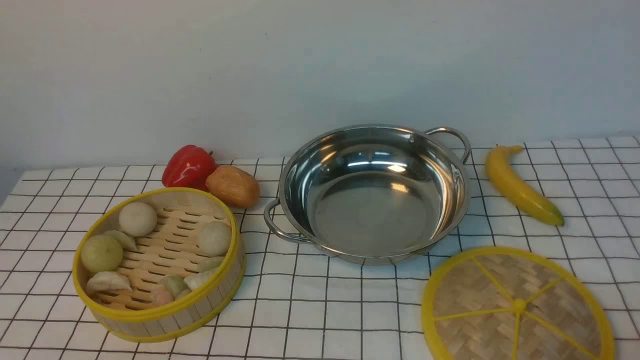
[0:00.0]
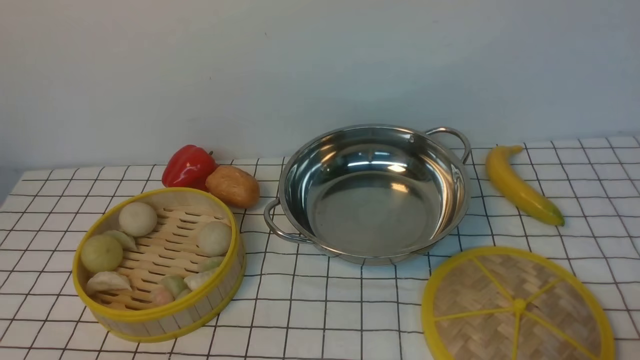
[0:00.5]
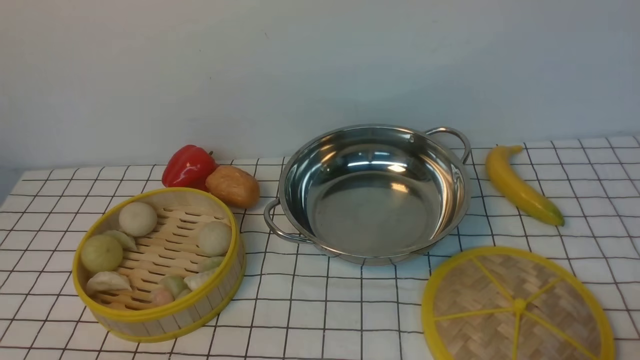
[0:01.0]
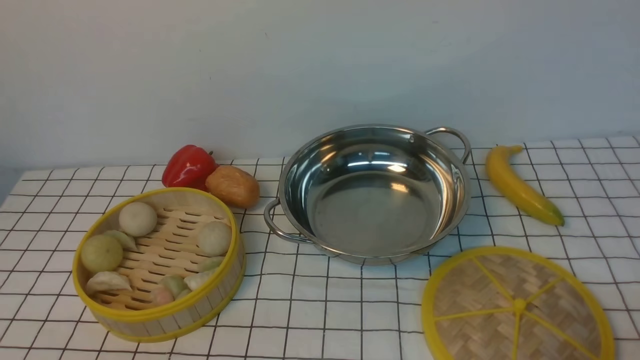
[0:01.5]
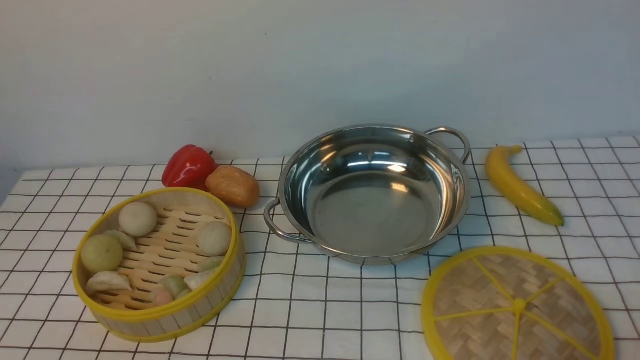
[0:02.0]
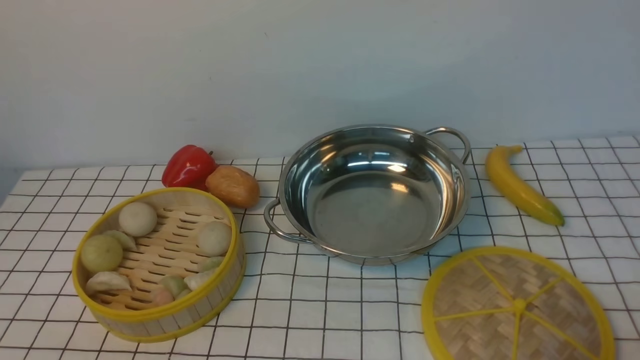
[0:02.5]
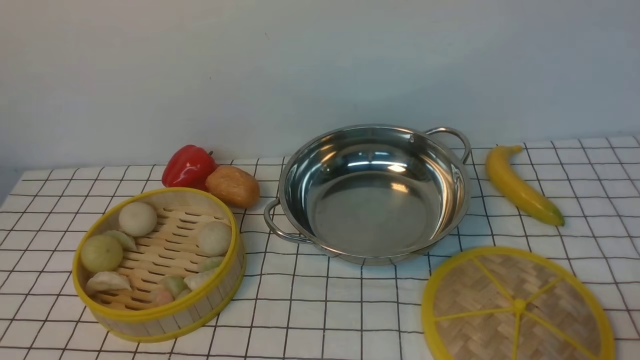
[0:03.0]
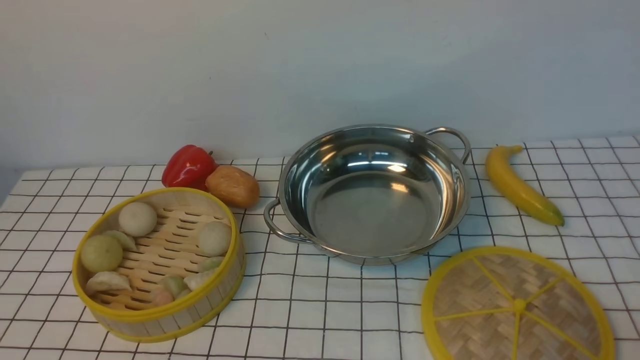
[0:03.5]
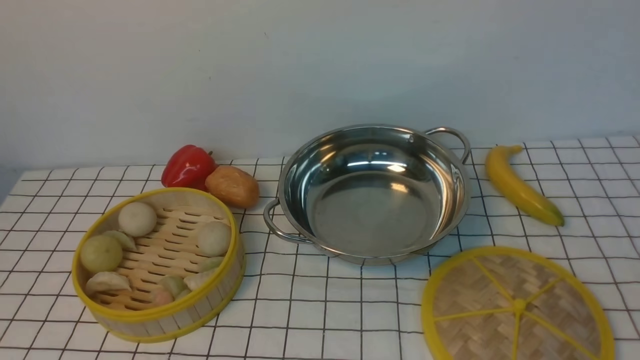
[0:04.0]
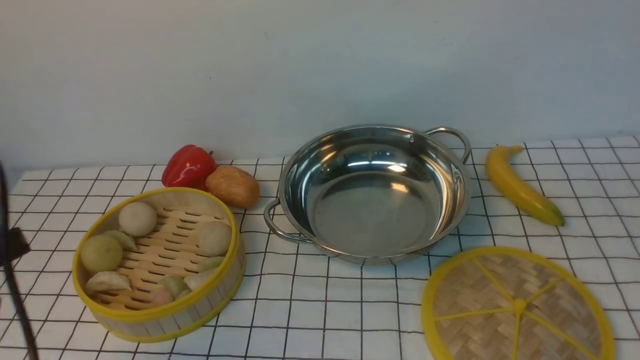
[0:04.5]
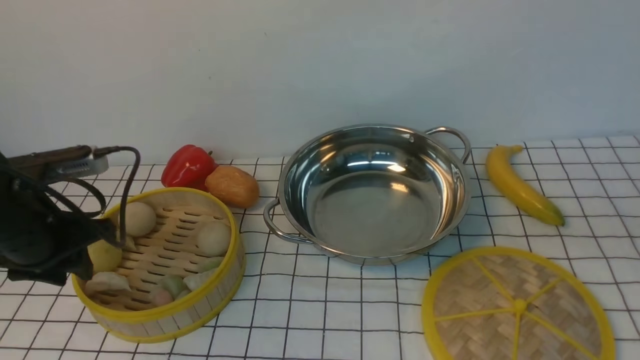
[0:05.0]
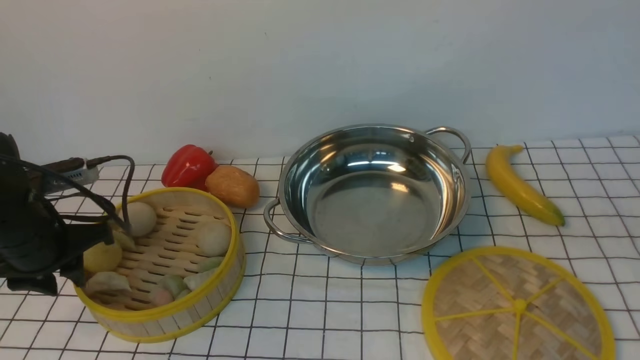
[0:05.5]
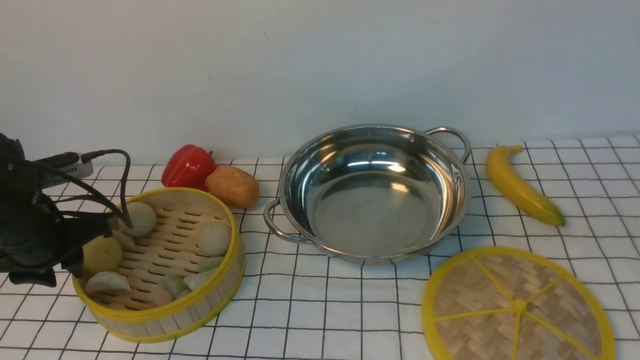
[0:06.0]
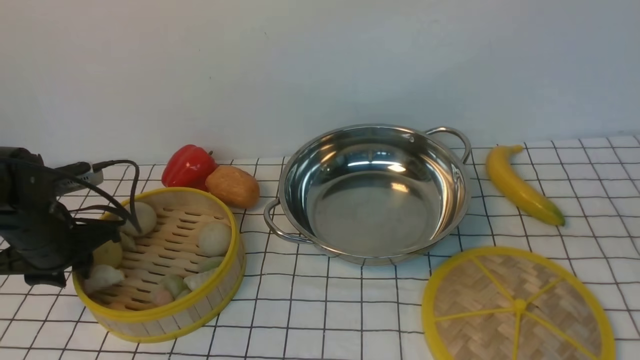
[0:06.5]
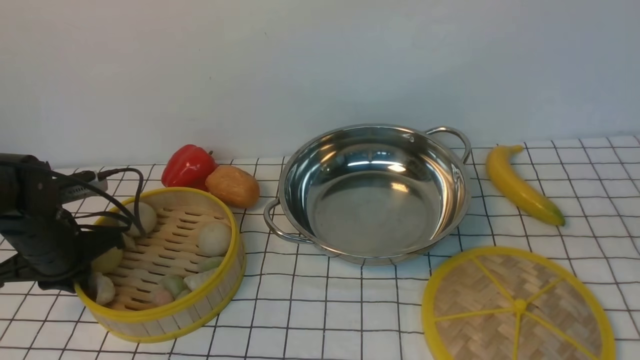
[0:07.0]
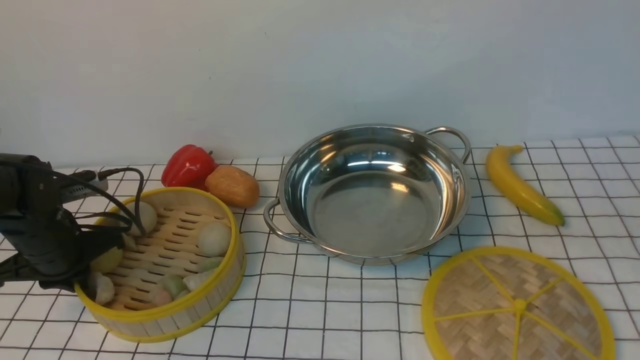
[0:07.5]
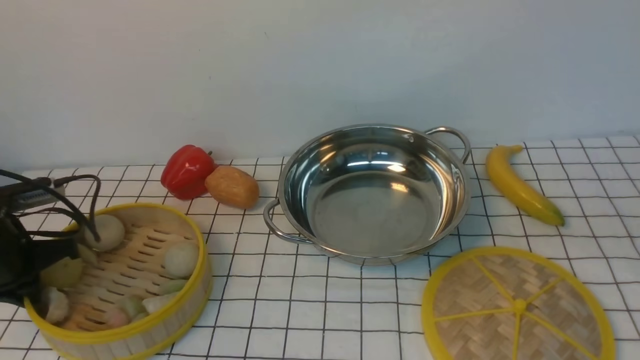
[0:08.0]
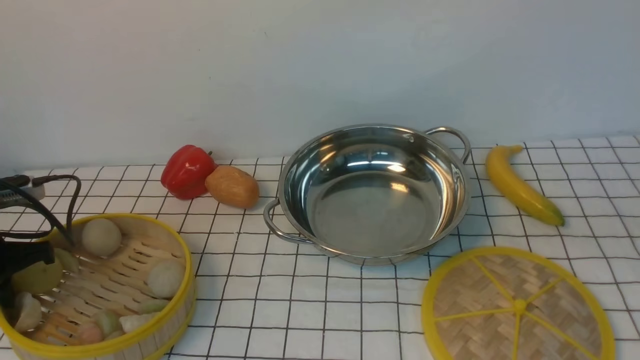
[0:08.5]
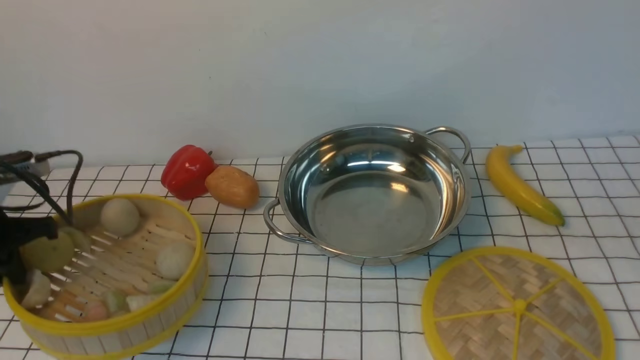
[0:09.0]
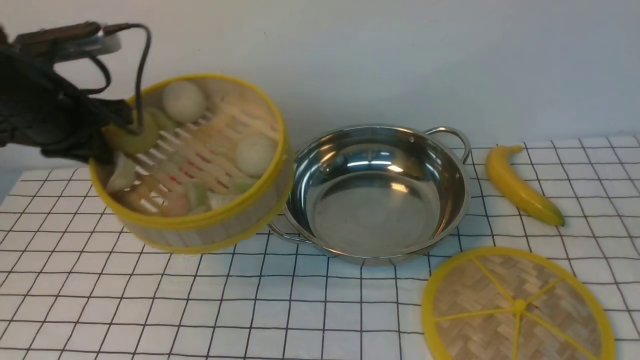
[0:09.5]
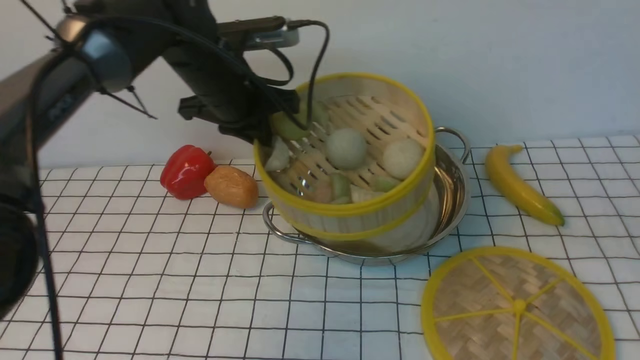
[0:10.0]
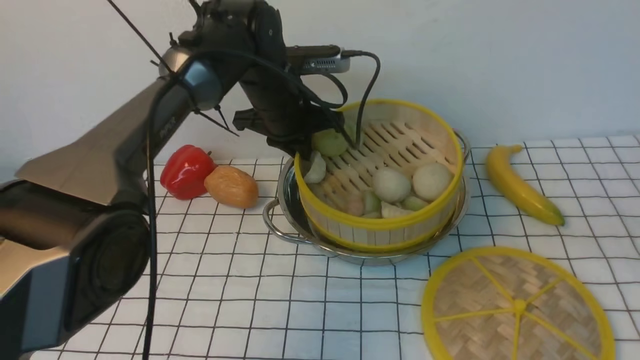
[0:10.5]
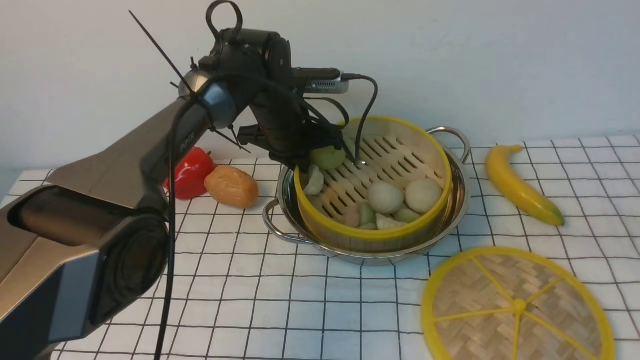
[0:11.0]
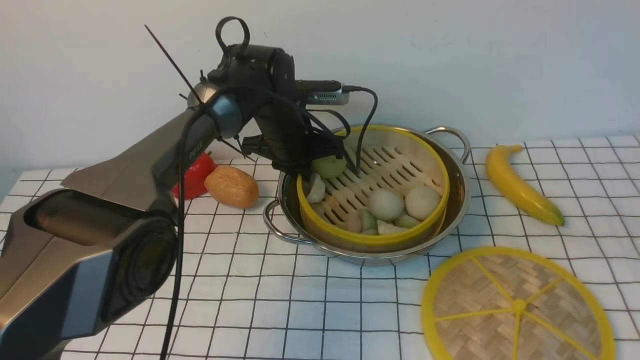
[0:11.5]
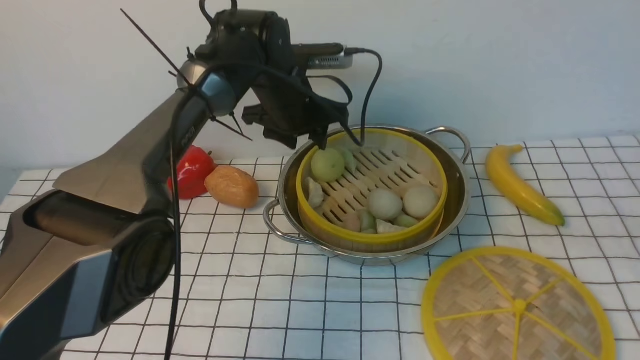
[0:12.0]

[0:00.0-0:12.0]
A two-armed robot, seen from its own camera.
Task of the whole recording: place the steamer in the pot on the white tablecloth, and put the lid on the steamer.
Step, 0:00.0 to 0:09.0: use the left arm to lift the steamer closest to it.
Step, 0:09.5 to 0:12.0: use the left arm to put the steamer into the iron steamer pot in the middle.
0:04.0 to 0:06.0: The left gripper travels forward by some 25 cm.
0:06.0 to 0:08.0: The left gripper closes up.
0:08.0 to 0:10.0: The left gripper heads to the right, forward and upward, covering about 30 cm.
0:10.0 to 0:12.0: The left gripper travels forward and to the right by about 10 cm, and opens up.

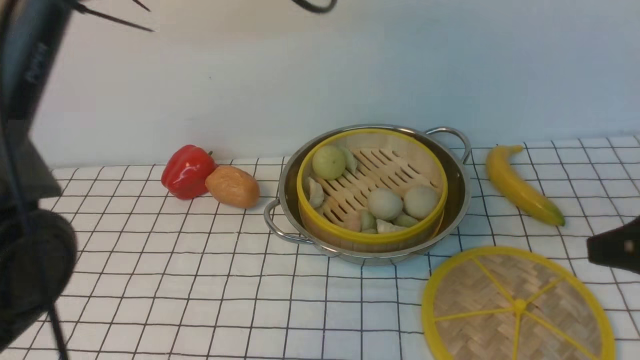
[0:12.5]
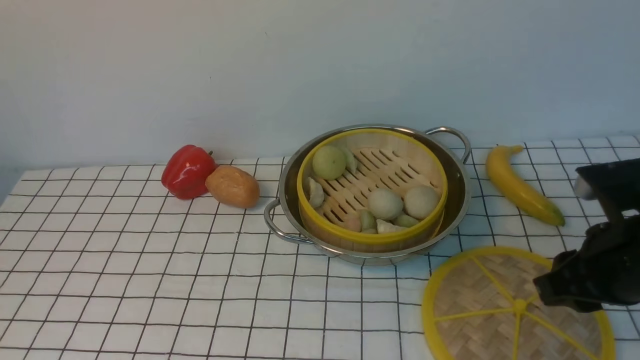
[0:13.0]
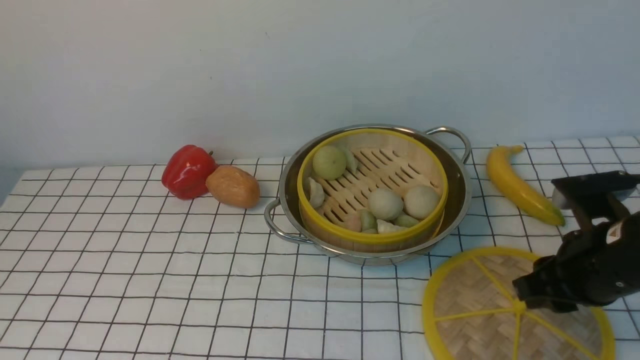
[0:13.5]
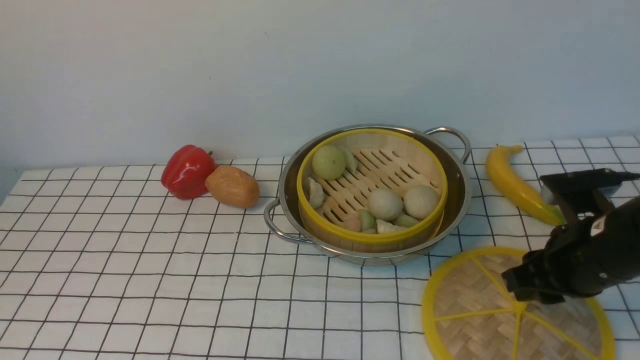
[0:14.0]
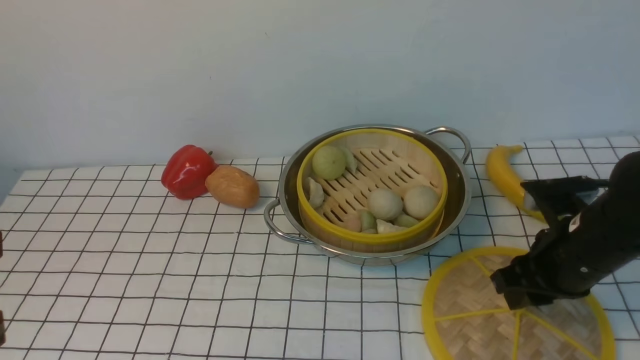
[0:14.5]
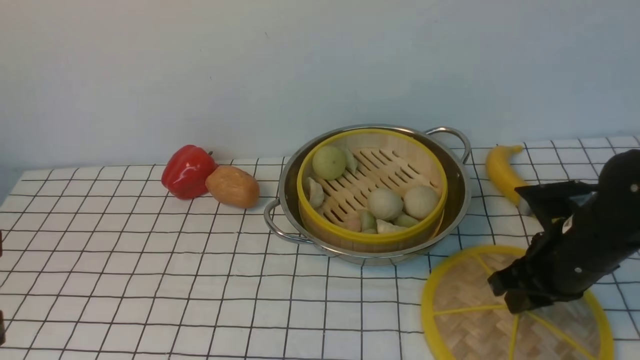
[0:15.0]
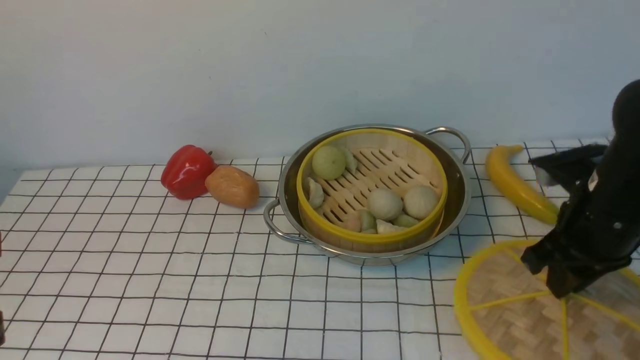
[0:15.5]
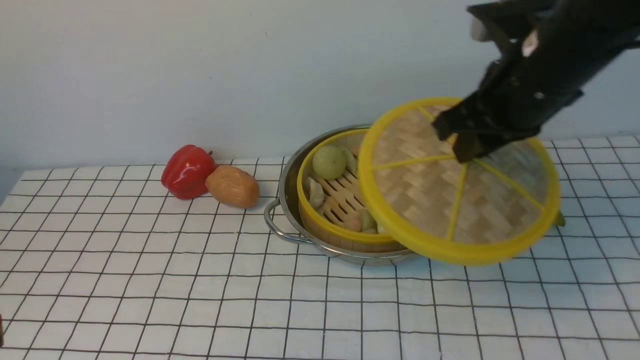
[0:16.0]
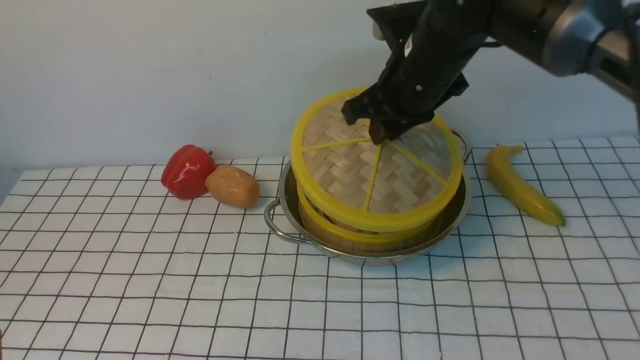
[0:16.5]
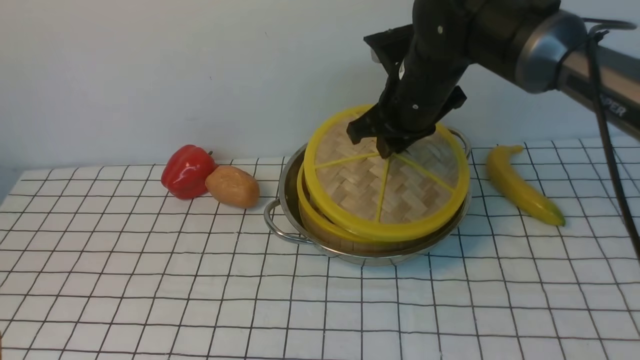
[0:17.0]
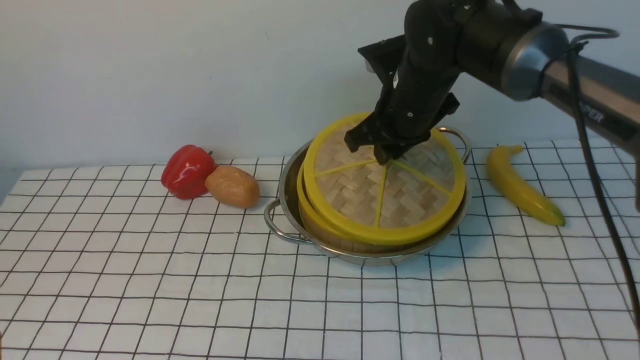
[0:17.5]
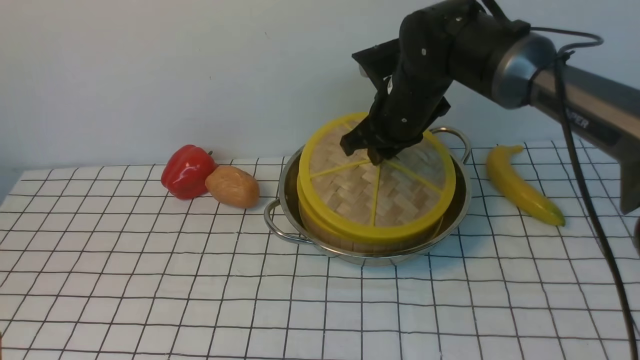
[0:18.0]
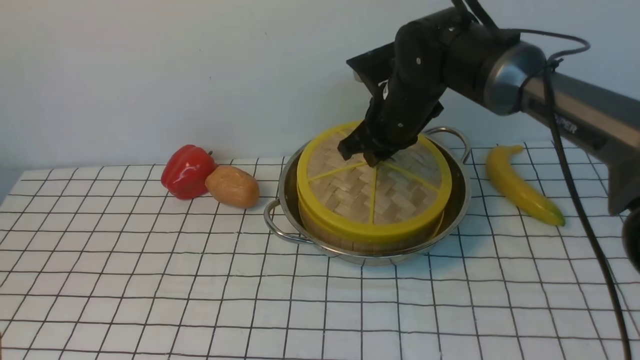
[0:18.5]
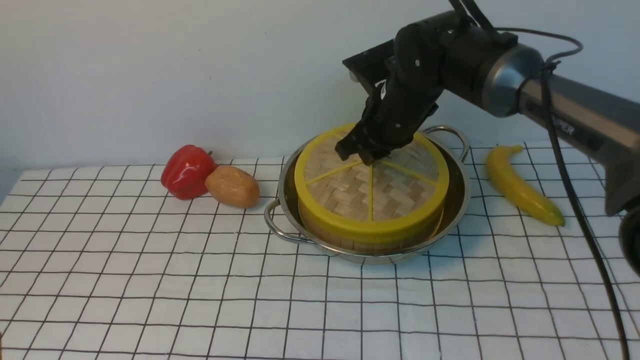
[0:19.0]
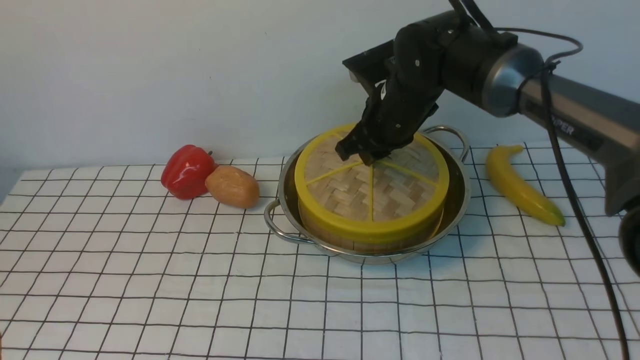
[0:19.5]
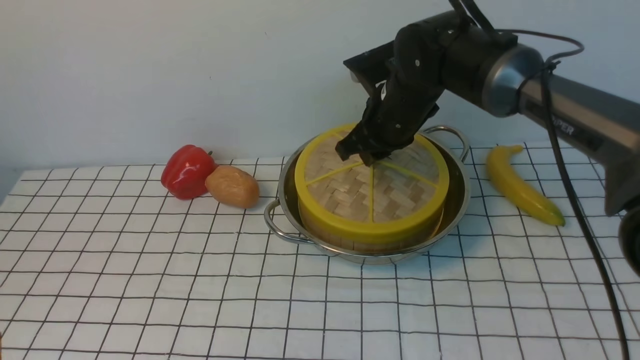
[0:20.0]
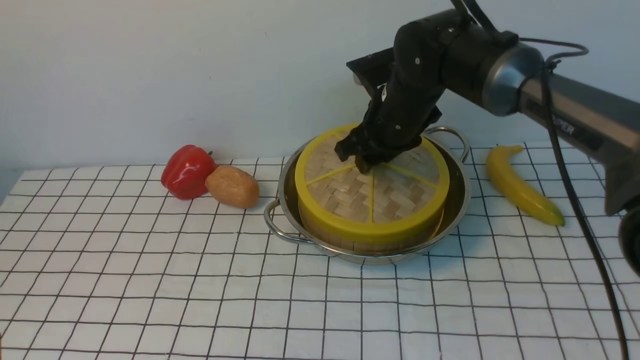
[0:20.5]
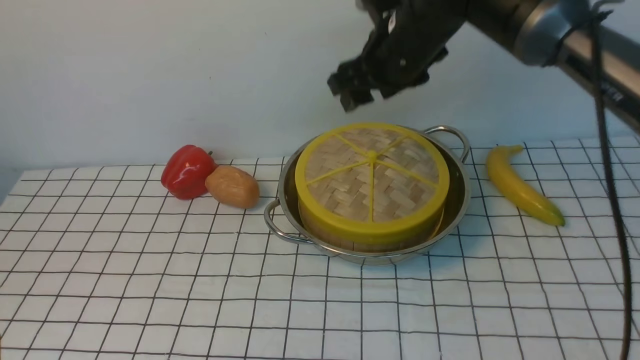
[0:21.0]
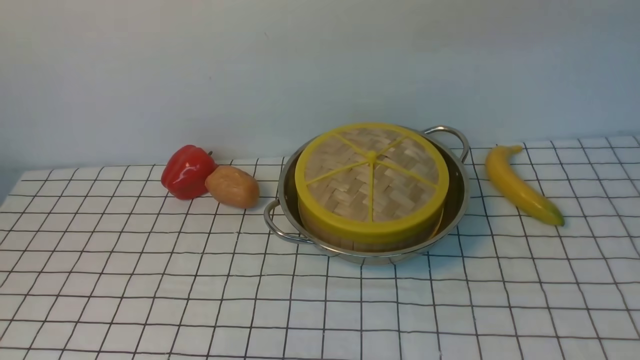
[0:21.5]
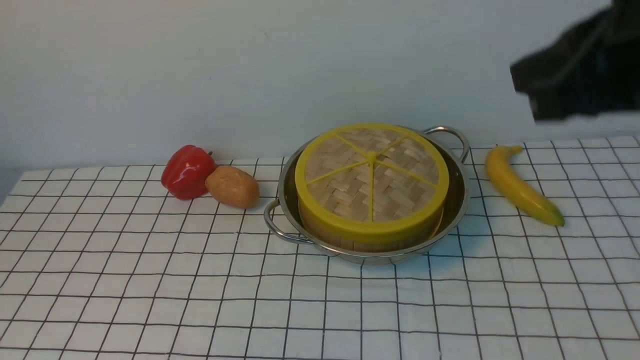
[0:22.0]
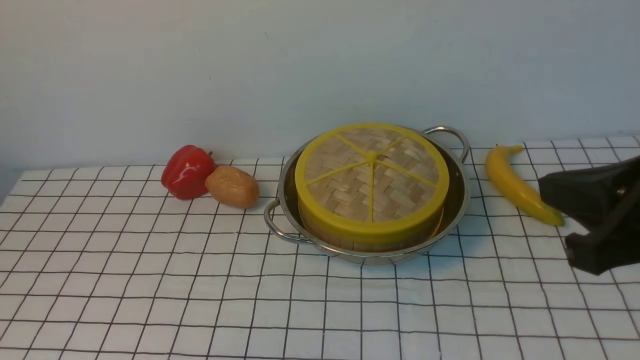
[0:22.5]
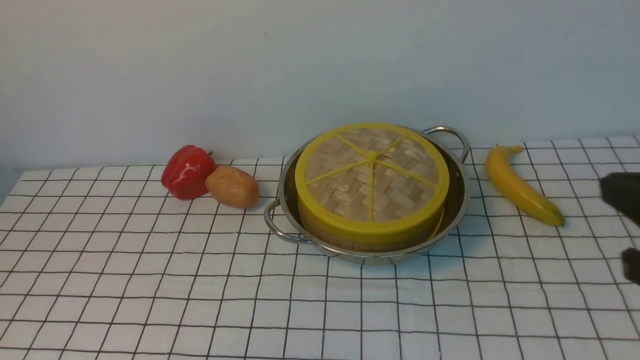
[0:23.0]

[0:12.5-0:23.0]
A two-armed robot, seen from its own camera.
Task of the whole recording: place the steamer in the pot on the white tablecloth, and put the lid on the steamer.
Step, 0:12.5 to 0:15.0: use the right arm to lift the lid of the steamer.
Step, 0:15.5 to 0:20.5: use the right arm to place the steamer lid on the steamer.
0:12.5 to 0:14.5: The right gripper moves downward and forward, some 15 cm; the left gripper travels backward and to the left by some 35 cm, and closes.
0:14.5 to 0:16.5: The right gripper heads to the left, upward and forward, covering roughly 20 cm.
0:16.5 to 0:19.0: The right gripper moves downward, about 5 cm.
0:19.0 to 0:21.0: The right gripper shifts approximately 10 cm upward, and opens its fingers.
0:21.0 to 0:23.0: The right gripper goes approximately 35 cm backward and to the right, and closes.
